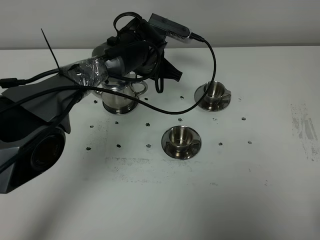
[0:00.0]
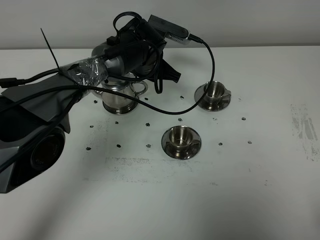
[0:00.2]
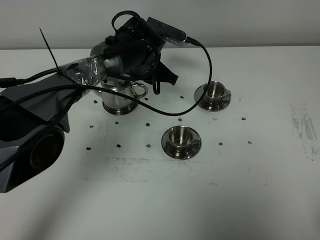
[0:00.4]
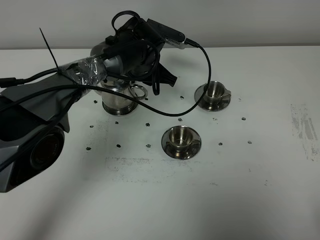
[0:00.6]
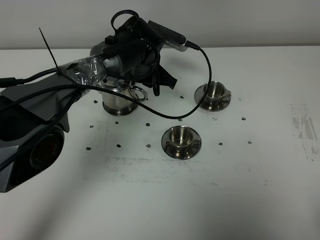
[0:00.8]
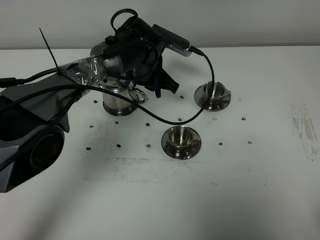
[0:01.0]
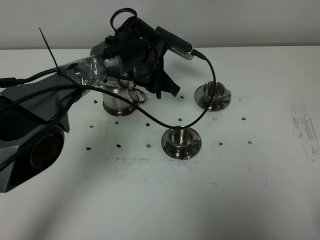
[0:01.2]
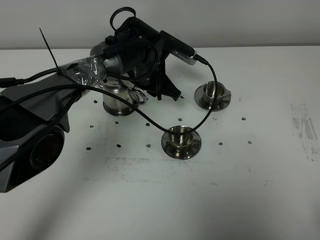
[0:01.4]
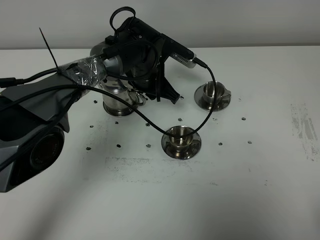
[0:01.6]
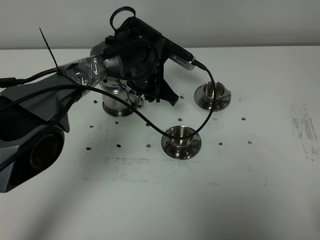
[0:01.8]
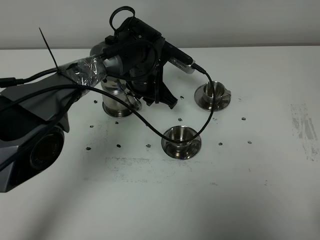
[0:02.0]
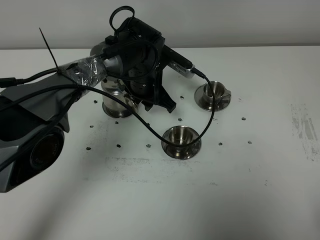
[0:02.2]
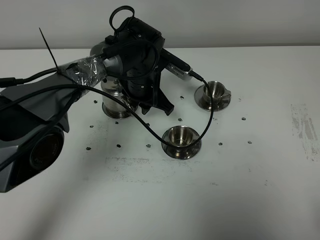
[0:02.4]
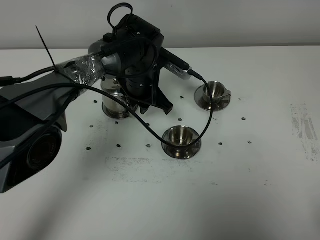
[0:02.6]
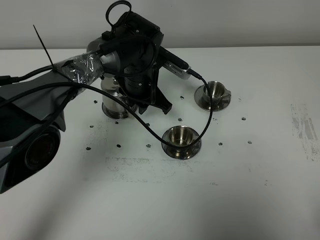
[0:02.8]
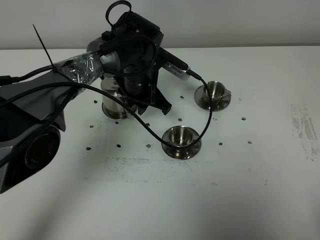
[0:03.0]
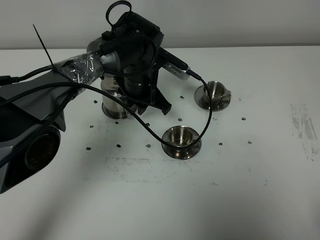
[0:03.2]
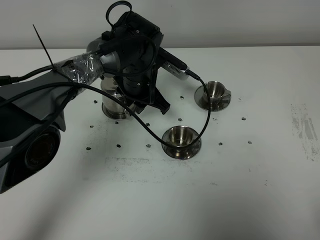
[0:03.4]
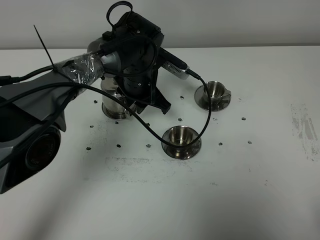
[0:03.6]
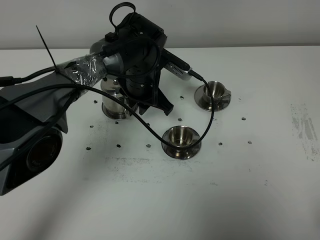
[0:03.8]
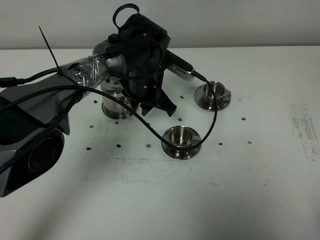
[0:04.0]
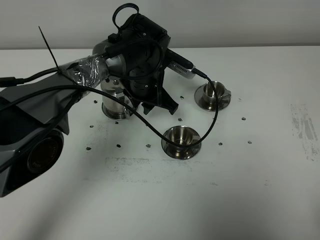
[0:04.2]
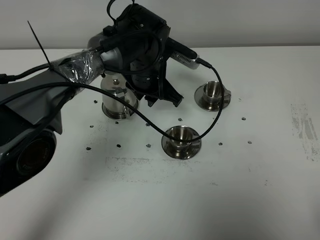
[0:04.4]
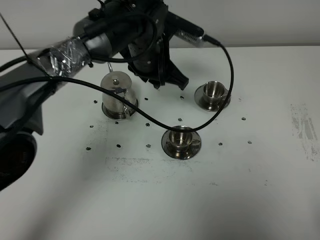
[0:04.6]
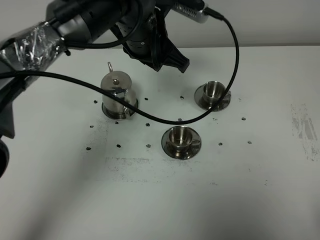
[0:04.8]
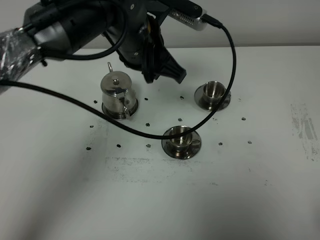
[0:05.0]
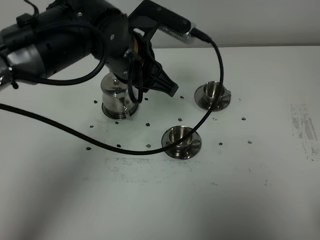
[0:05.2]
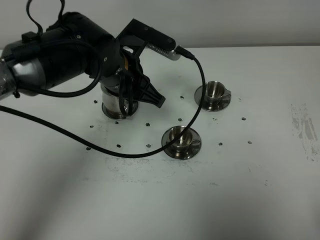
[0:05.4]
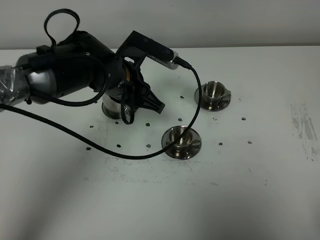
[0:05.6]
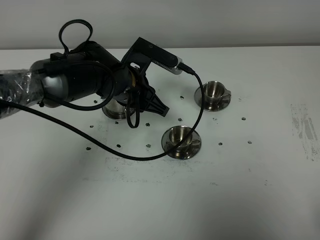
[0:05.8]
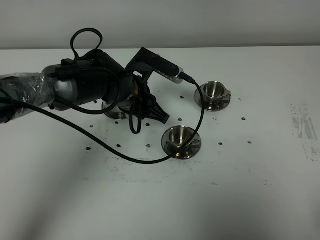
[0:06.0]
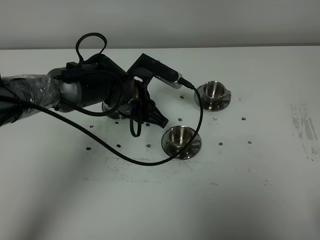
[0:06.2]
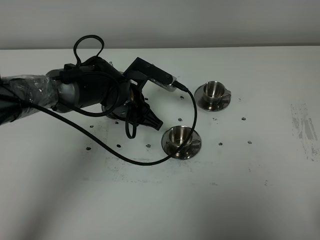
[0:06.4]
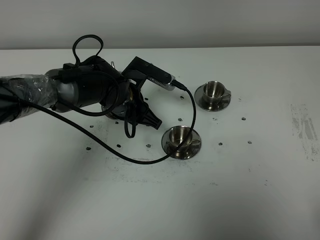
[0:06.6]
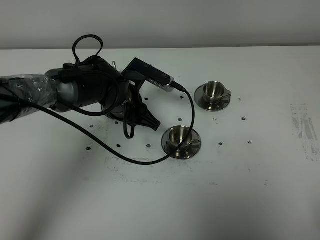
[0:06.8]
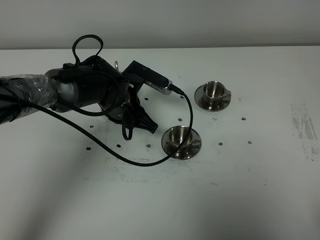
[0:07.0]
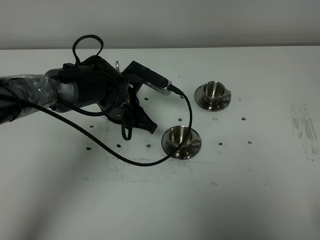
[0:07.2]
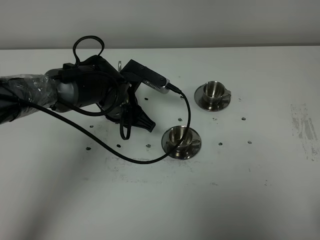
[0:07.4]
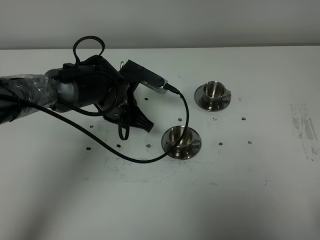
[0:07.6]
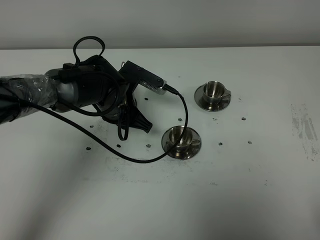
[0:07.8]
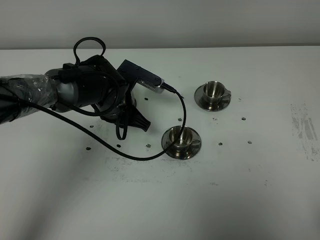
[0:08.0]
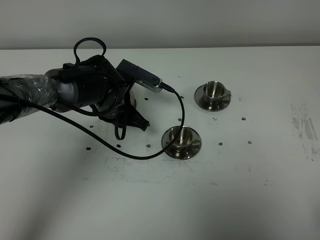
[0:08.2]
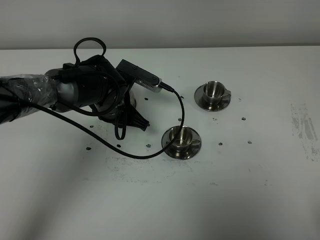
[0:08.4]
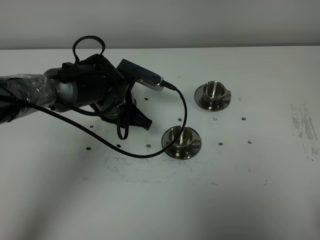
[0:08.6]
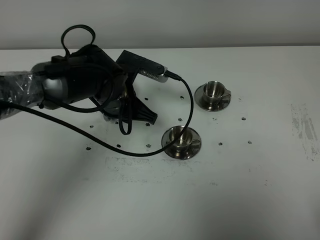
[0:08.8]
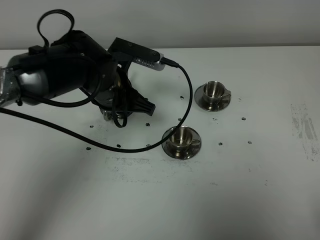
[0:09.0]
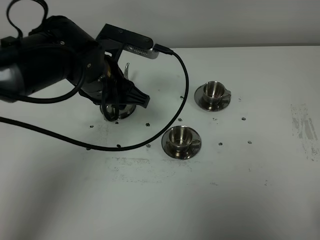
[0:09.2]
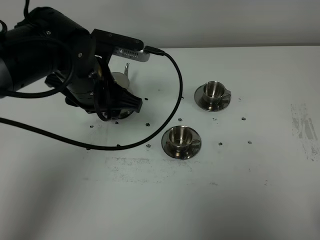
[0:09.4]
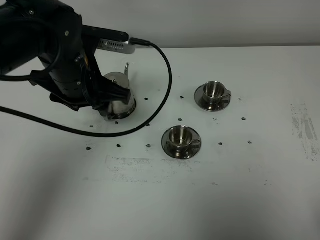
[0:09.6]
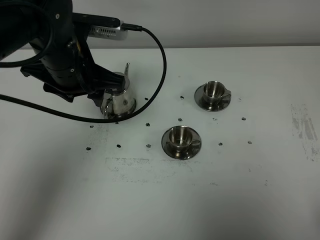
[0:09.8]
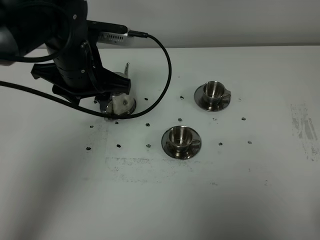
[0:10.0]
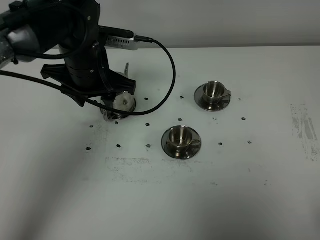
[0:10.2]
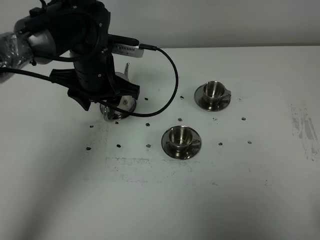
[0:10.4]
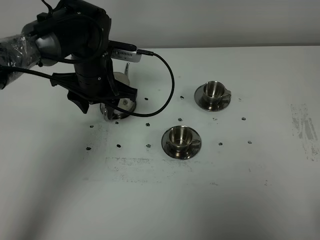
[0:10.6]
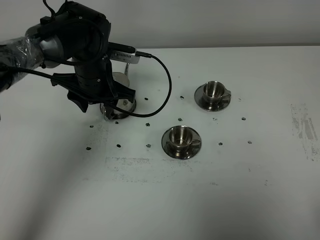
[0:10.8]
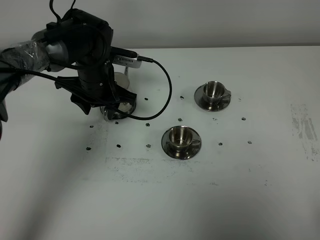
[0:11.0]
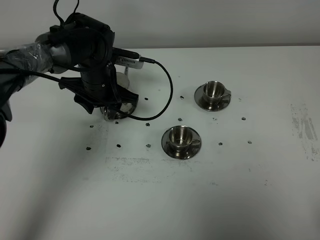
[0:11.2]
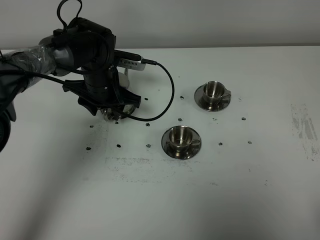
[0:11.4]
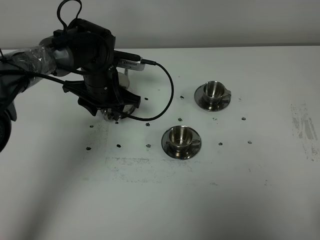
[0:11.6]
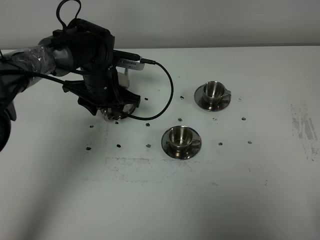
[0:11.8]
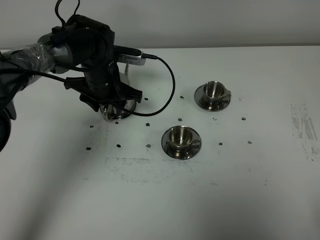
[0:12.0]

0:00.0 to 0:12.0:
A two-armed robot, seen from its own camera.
Task of the whole recording: grasp the stainless steel teapot and pour the tea into the two stainless steel teacups one by one, put the stainless steel teapot back in its original place.
0:00.0 to 0:01.6: The grippers make only small movements.
0:01.6 to 0:04.4: The grippers stay close to where they were, moving slightly.
0:04.4 to 0:06.0: The left gripper travels upward and back again, roughly 10 cm each way.
0:06.0 to 0:07.6: There are only small adjustments of the grippers.
0:07.6 to 0:09.0: The left gripper travels upward by approximately 10 cm.
0:09.0 to 0:10.4: The left gripper ends up approximately 5 cm from where it was, and opens its fingers.
0:10.4 to 0:12.0: The left gripper travels downward by some 5 cm.

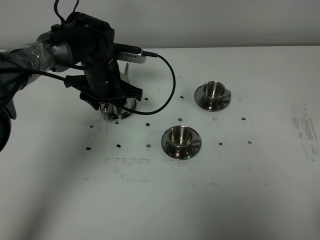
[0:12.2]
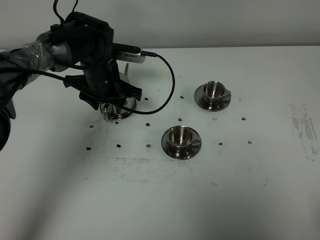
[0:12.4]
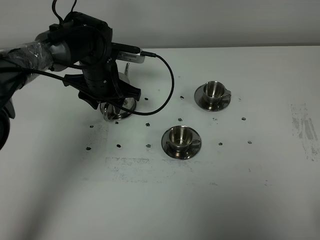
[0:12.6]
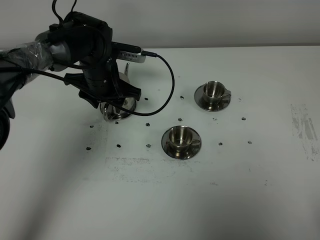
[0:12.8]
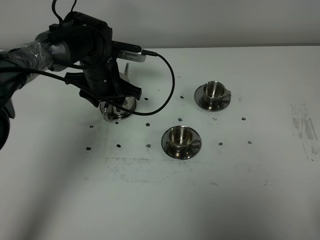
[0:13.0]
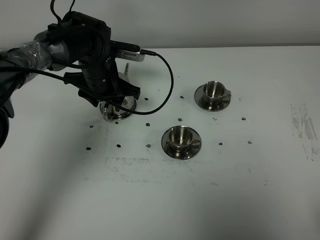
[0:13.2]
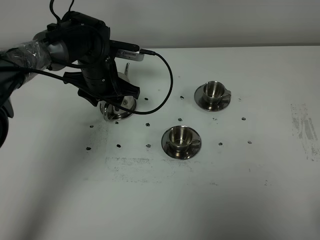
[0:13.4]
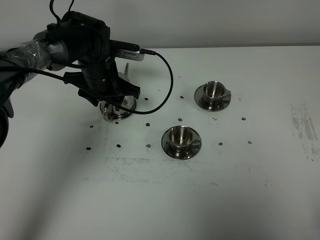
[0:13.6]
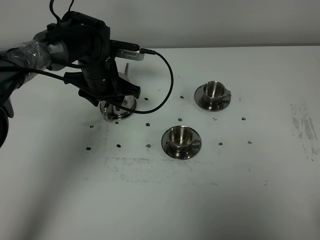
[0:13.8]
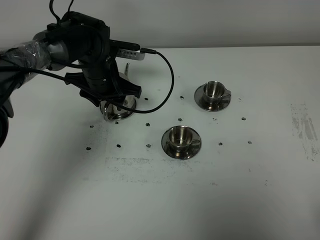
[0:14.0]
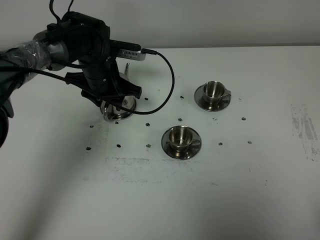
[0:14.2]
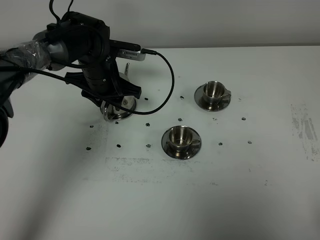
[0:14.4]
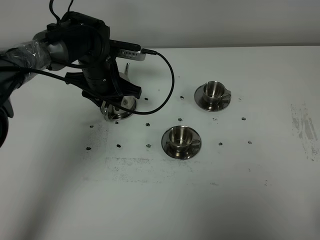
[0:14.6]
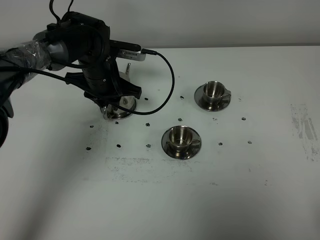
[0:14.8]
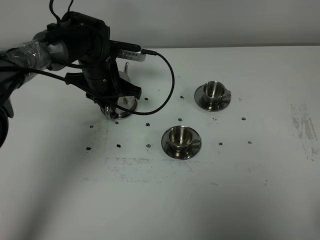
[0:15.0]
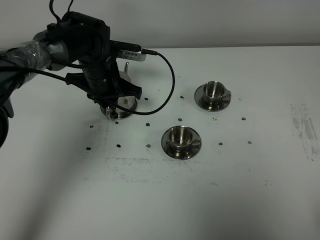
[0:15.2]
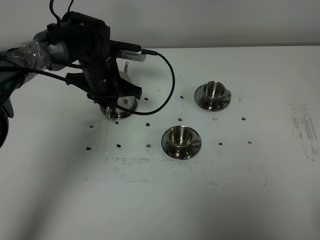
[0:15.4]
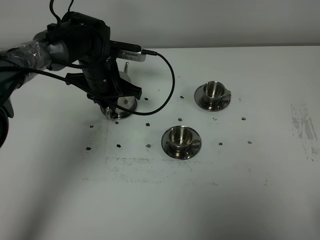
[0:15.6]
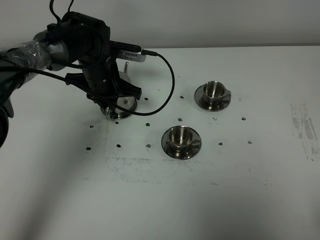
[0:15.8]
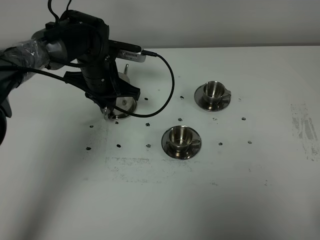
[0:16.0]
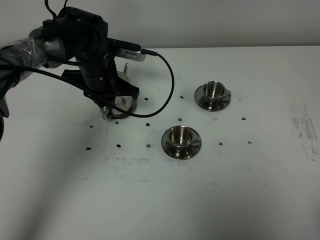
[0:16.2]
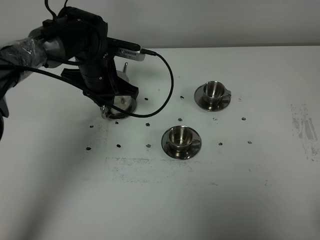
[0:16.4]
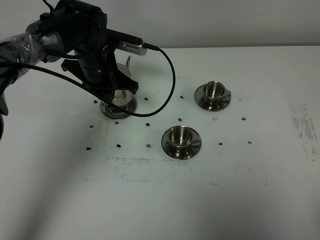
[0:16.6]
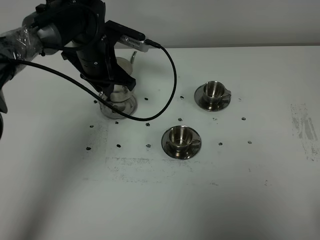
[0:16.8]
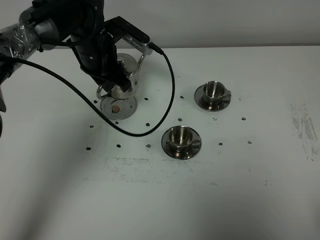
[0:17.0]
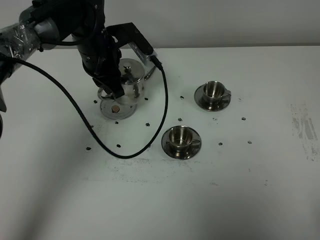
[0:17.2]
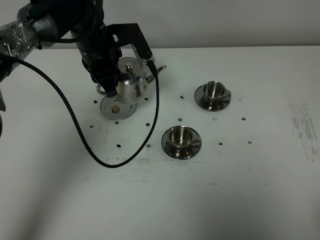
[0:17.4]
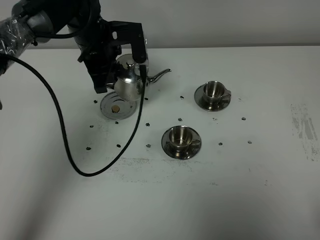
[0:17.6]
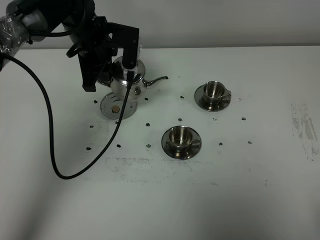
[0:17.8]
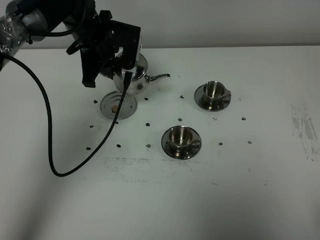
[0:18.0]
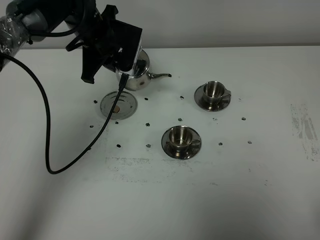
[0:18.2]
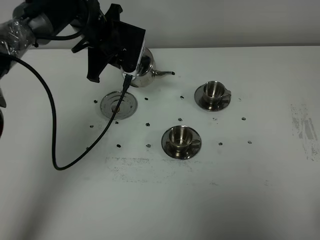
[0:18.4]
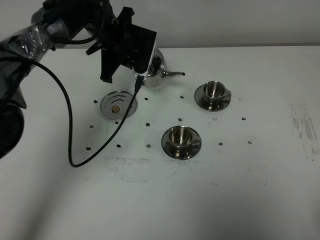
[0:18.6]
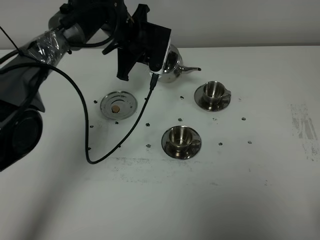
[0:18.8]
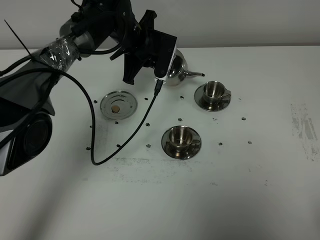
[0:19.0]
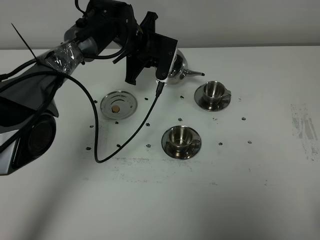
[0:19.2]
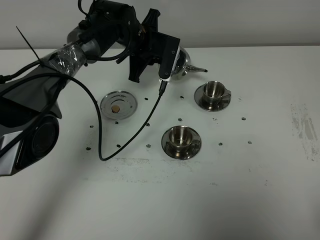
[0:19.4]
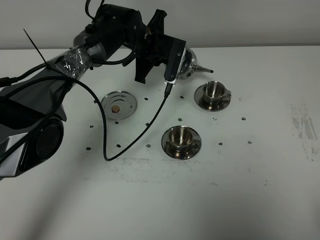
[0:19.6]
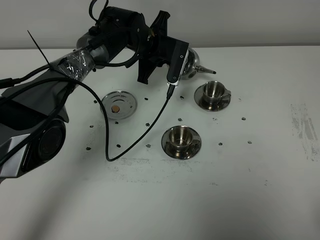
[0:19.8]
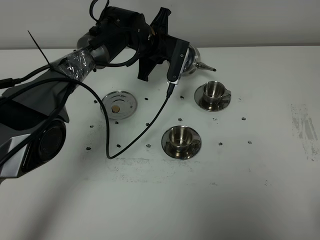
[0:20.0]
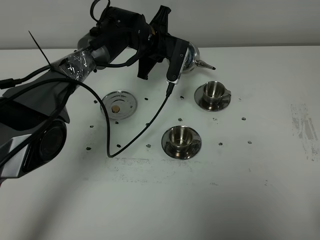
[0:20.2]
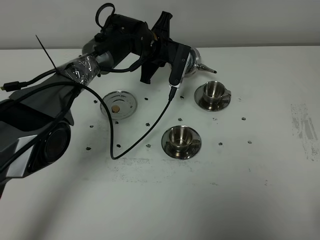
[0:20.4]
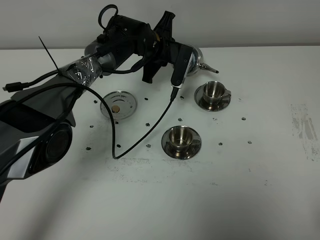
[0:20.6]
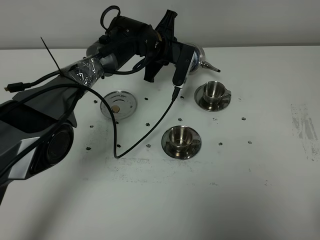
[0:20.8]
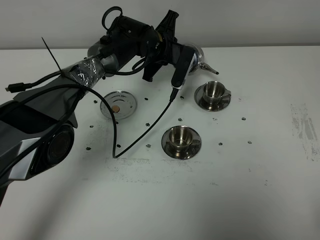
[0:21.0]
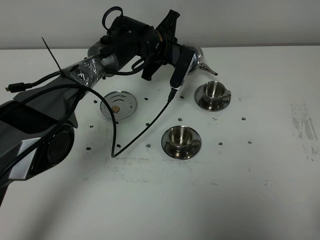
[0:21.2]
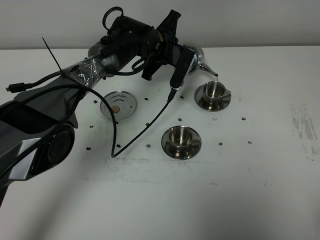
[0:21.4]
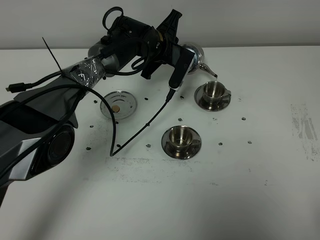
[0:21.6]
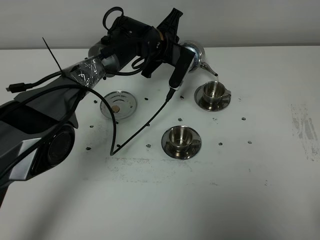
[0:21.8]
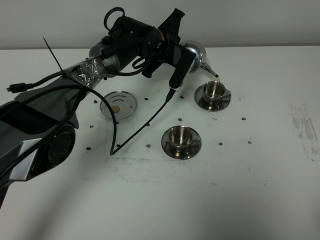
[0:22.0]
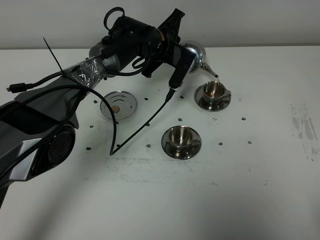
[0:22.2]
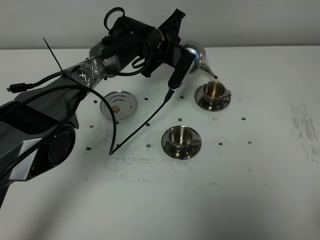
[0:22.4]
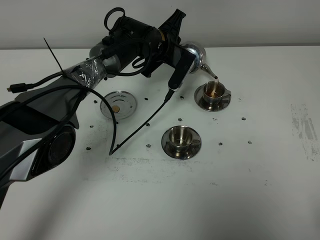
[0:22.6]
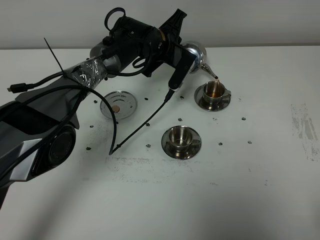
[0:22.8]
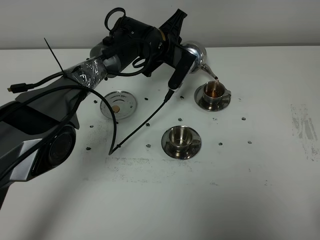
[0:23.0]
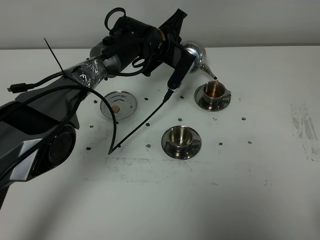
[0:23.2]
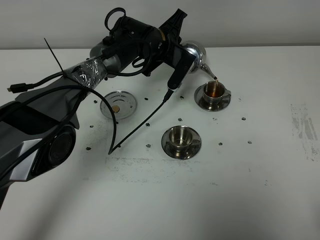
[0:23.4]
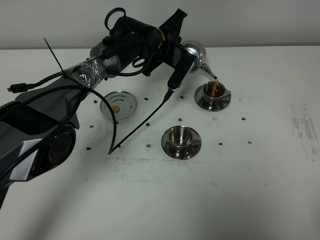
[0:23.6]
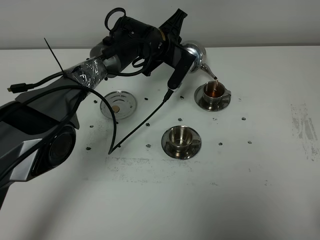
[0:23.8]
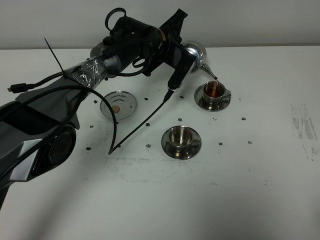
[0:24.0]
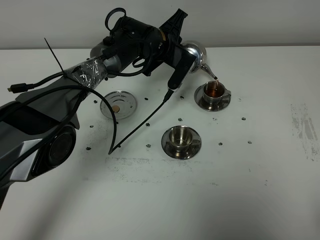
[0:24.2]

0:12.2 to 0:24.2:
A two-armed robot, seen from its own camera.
Task of the whole recording: grasp the stainless steel teapot and pour the tea into the two stainless steel teacups one by one, put the stainless steel teapot back in its original place.
Step, 0:12.2 to 0:16.4: Pick up the teapot with the left gripper.
0:12.2 to 0:13.8: Both grippers stay about where they are.
0:13.8 to 0:15.2: The left gripper closes up.
0:15.2 to 0:16.6: The grippers stay close to where they were, moving slightly.
0:16.6 to 0:18.2: The left gripper shifts by about 5 cm.
0:18.2 to 0:19.8: The left gripper heads to the right and downward, covering roughly 10 cm.
0:19.8 to 0:22.6: The grippers make only small movements.
0:22.6 to 0:24.2: Both grippers stay put.
